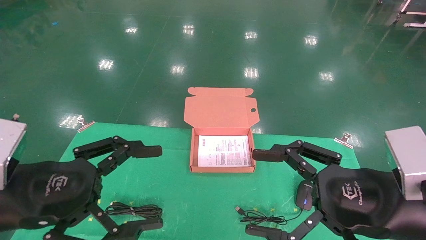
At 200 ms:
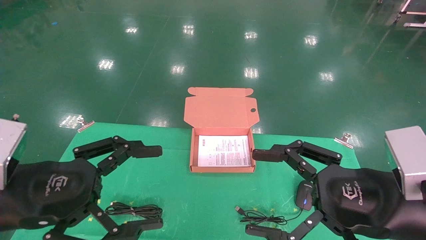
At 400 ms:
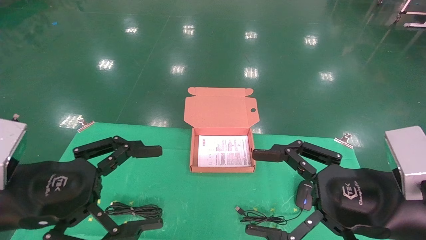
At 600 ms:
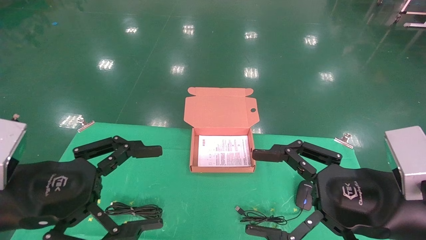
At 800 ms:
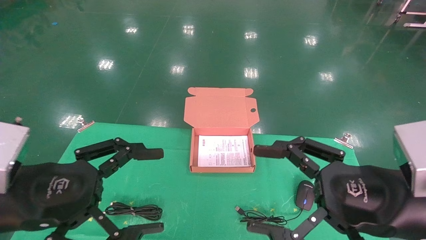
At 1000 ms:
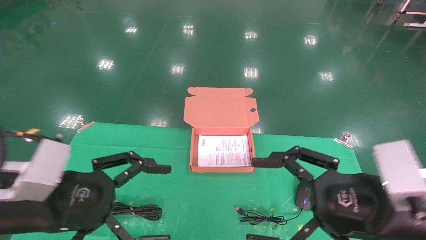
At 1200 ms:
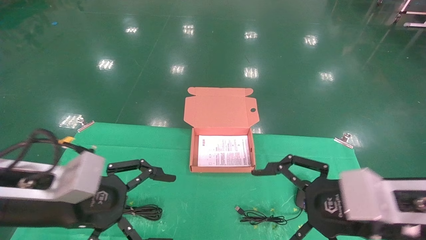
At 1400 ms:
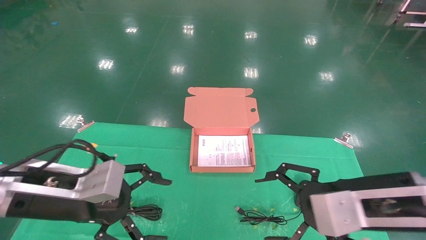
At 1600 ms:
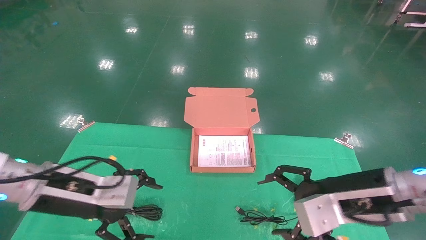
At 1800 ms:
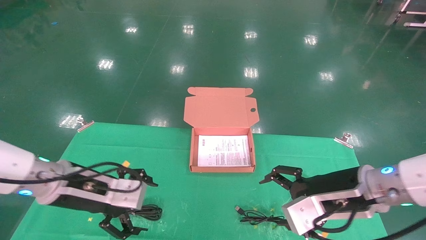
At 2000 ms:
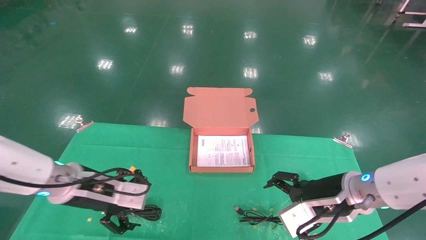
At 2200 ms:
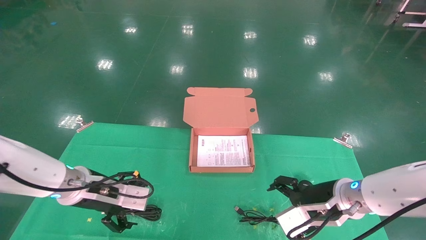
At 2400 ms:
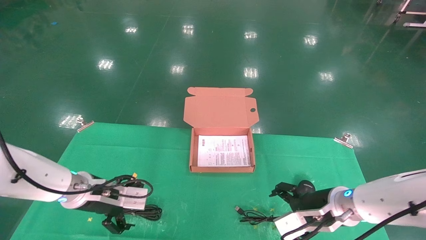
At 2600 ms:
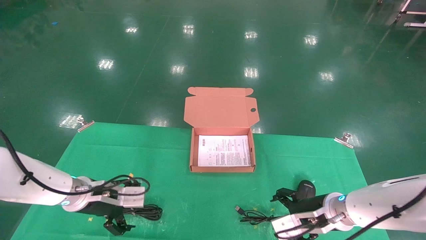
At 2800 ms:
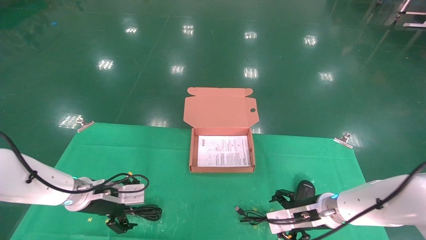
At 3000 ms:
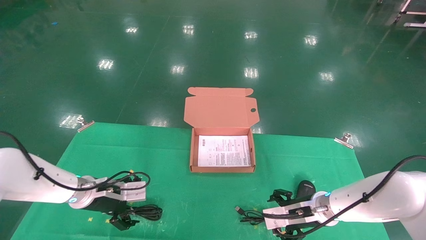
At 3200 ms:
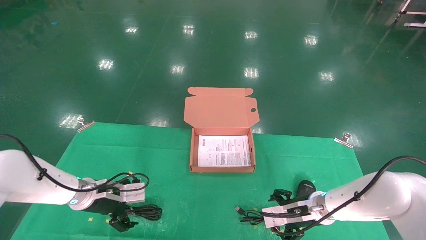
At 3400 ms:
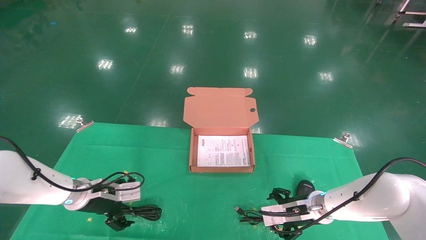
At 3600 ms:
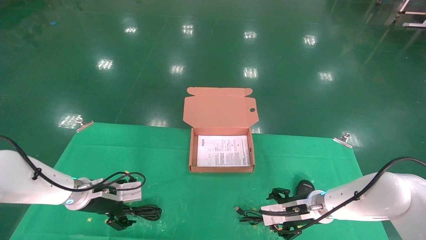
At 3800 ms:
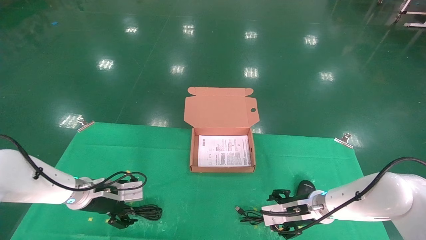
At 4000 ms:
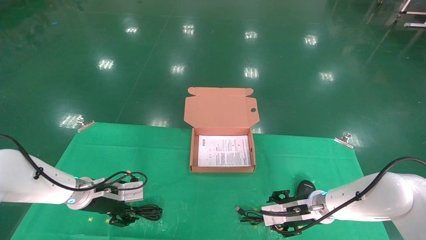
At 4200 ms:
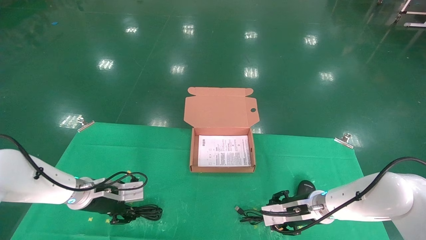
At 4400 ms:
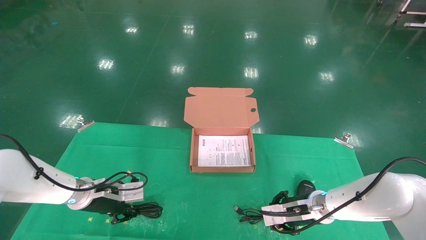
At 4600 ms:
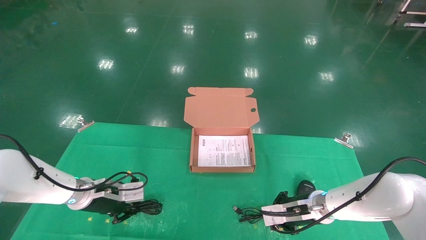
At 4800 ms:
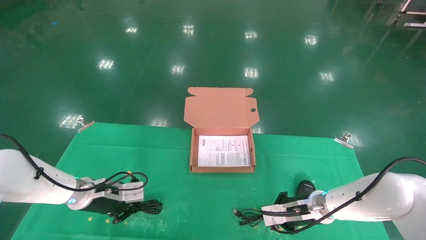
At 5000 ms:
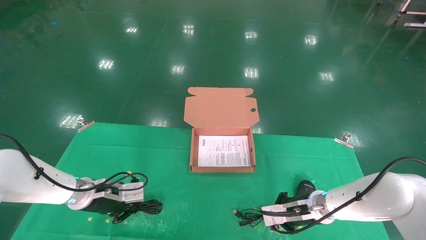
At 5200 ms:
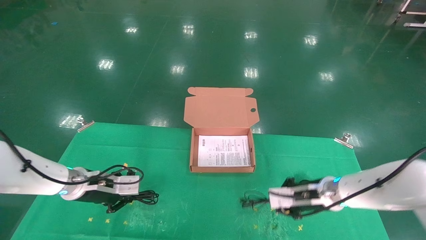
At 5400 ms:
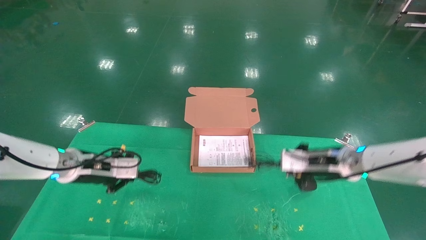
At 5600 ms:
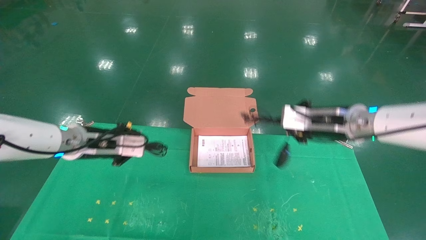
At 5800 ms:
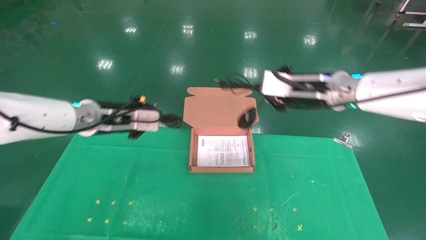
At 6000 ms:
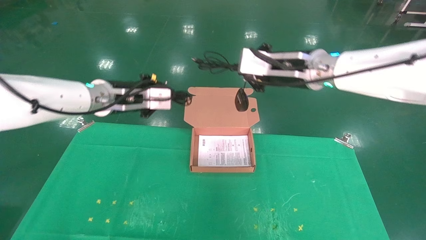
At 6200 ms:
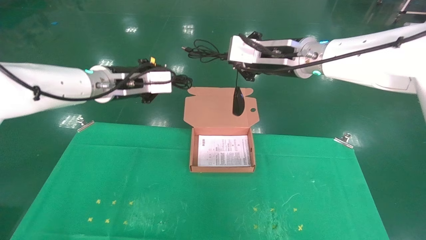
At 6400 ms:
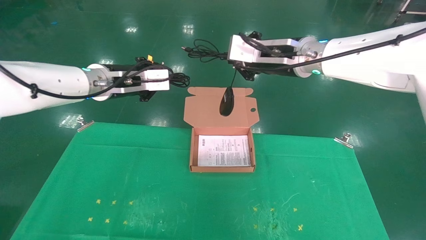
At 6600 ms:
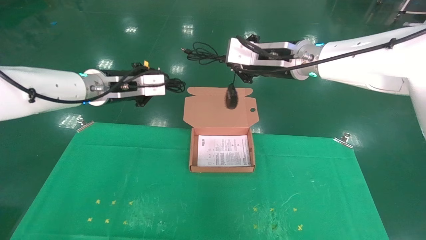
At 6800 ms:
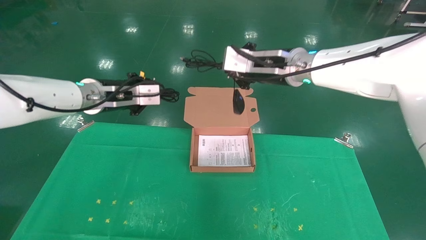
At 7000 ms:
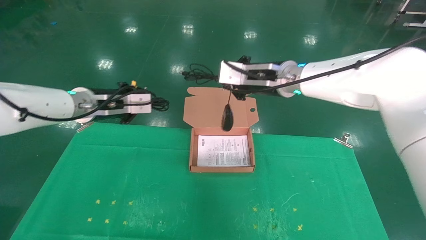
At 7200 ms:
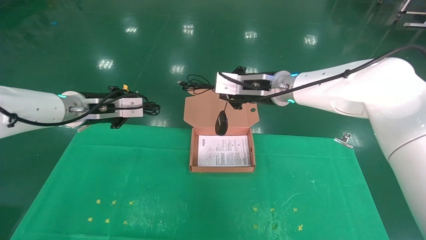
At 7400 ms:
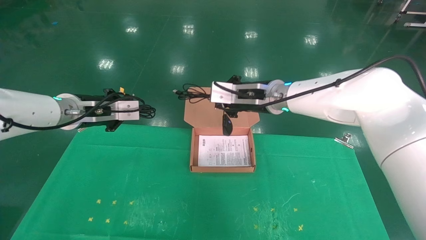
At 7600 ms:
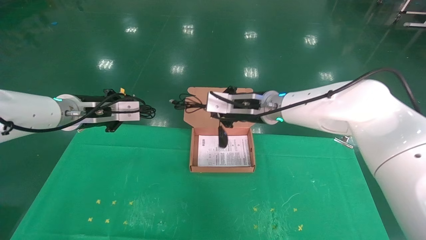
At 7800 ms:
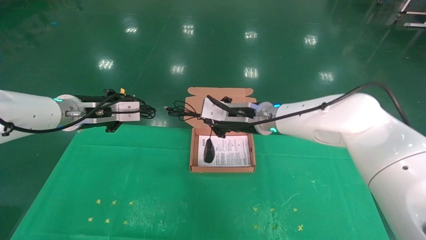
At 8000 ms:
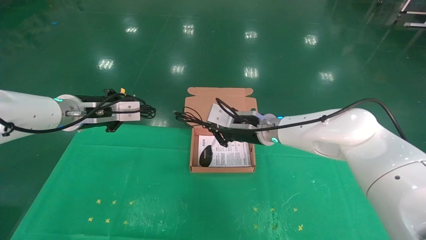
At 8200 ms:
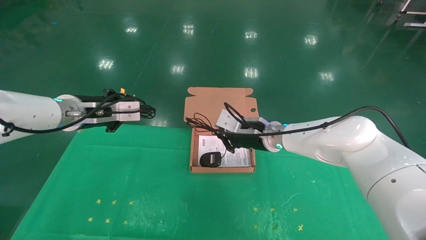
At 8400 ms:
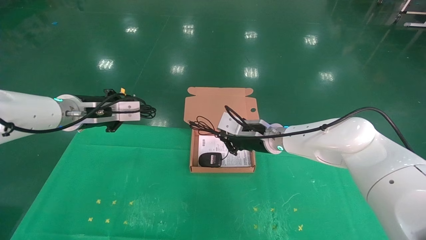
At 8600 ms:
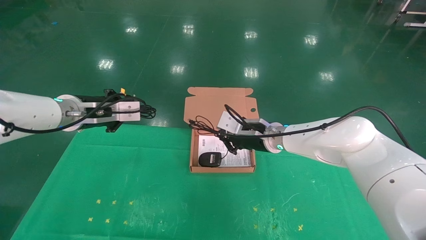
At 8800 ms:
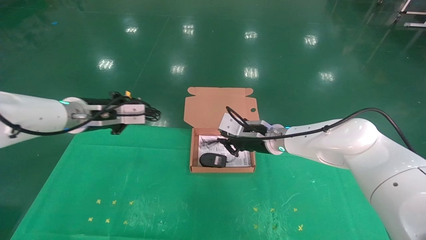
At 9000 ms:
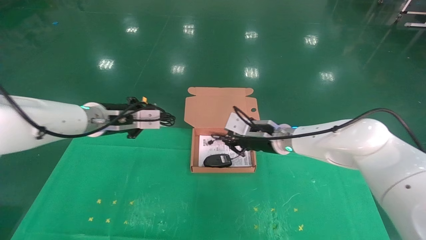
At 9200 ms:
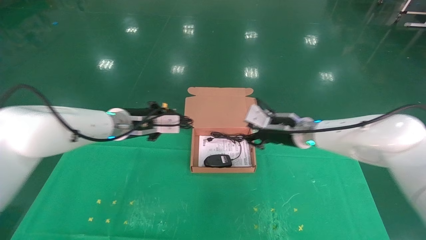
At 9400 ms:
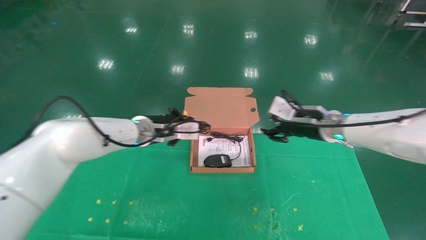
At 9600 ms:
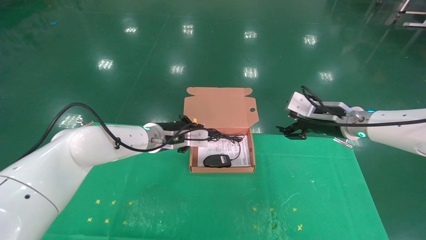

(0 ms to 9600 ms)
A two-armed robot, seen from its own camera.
Task of the whole recording: grasp data cable left put into box grasp mouse right put into box.
Step, 1200 ms - 4600 ms: Grab and pick up both the mouse and power cord from the accessory packaging area at the same time.
0 ms - 1600 ms: Both grippers travel together forward, some 10 cm.
1600 ms - 3200 ms: The left gripper moves forward and downward, approximately 20 cm, while the right gripper shifts approximately 20 cm downward and forward.
3200 ms - 4800 ms: The right gripper closes its fingers, while the left gripper closes.
4800 ms - 6400 ms: The two grippers go about 30 cm upward.
6400 ms - 8000 ms: The left gripper goes approximately 10 cm to the left and downward, while the right gripper shifts roughly 15 cm downward.
8000 ms - 9600 ms: The right gripper is displaced to the right by roughly 15 cm, and opens up. The left gripper is displaced to the right, downward and forward by about 15 cm.

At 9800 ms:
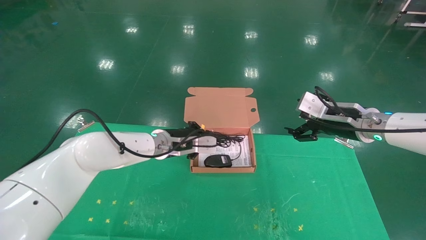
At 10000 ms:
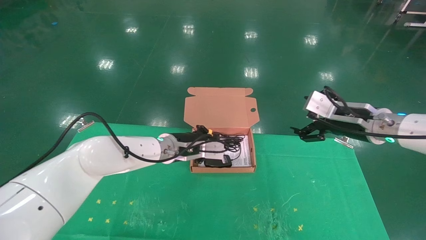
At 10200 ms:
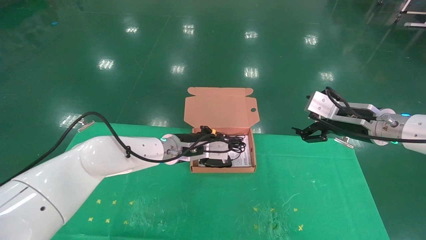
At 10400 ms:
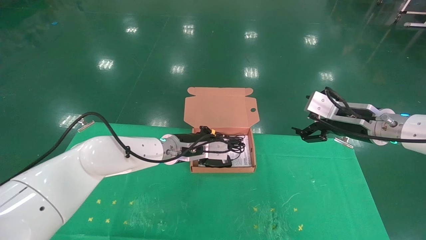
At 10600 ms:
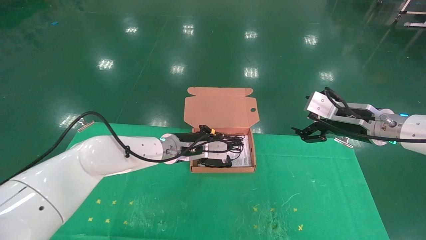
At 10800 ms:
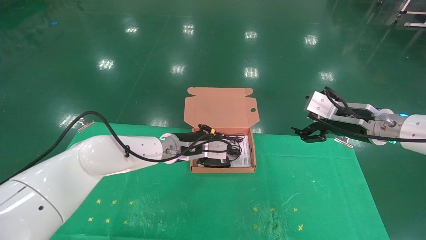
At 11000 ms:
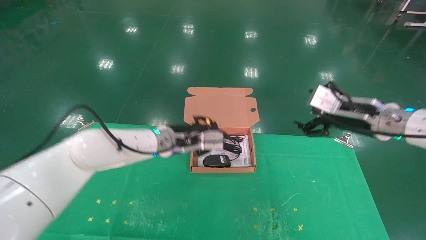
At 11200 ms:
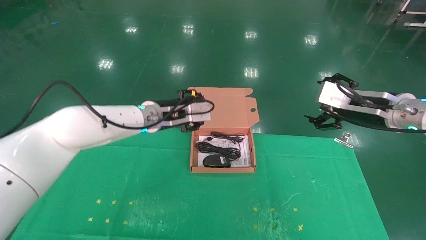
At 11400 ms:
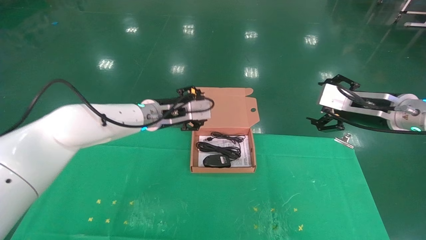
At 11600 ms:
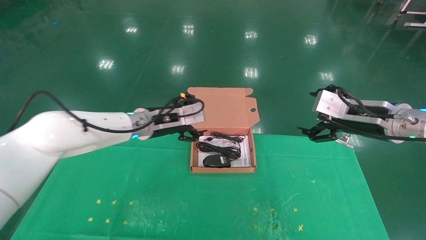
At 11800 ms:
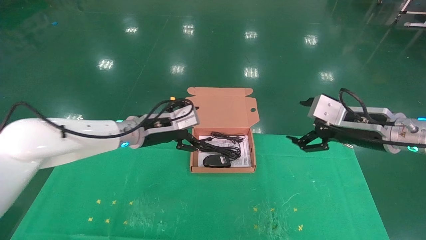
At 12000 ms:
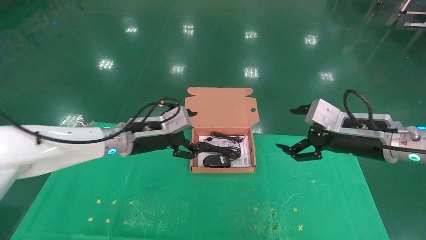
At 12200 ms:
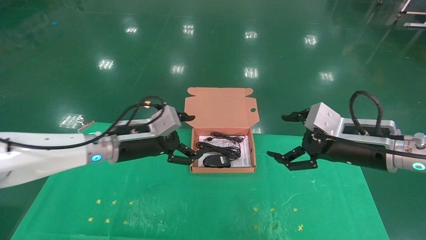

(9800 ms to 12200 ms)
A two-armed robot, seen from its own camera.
Task of the whole recording: grasp data cable left put into box grasp mouse right put into box.
9800 ms - 11000 ms: The right gripper changes place by about 5 cm.
11000 ms - 12200 ms: The right gripper shifts roughly 5 cm backward; the left gripper moves to the left and backward, roughly 10 cm, and opens.
